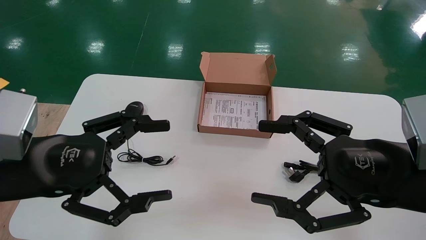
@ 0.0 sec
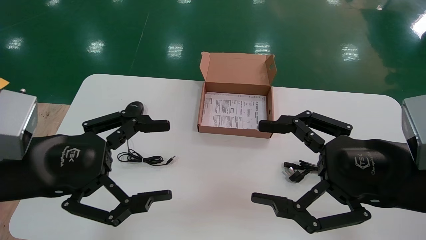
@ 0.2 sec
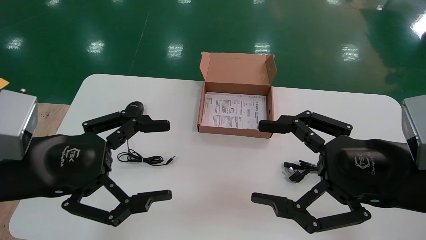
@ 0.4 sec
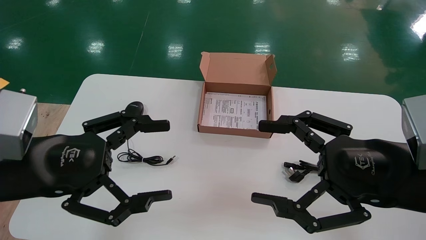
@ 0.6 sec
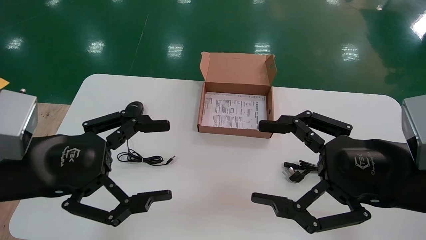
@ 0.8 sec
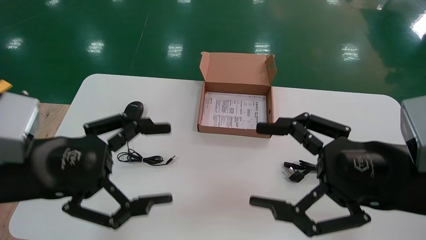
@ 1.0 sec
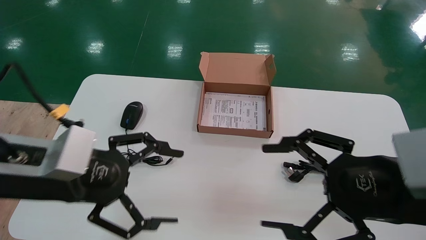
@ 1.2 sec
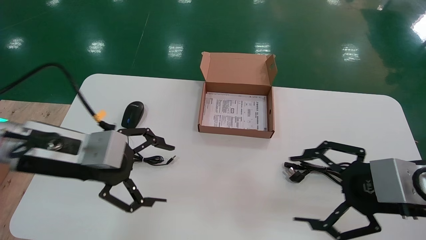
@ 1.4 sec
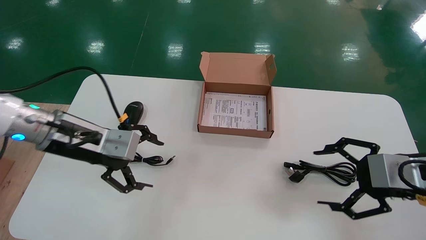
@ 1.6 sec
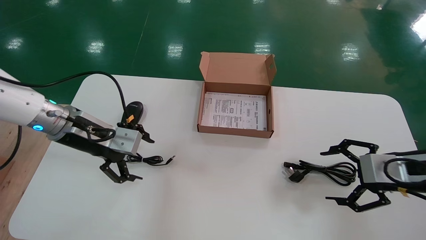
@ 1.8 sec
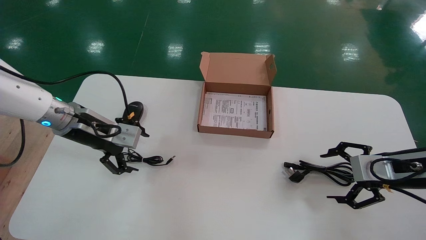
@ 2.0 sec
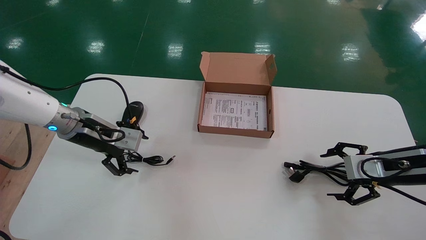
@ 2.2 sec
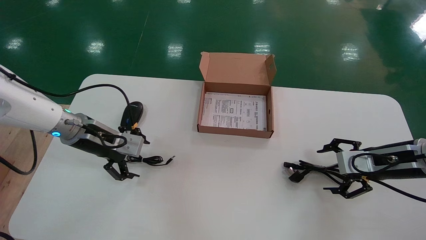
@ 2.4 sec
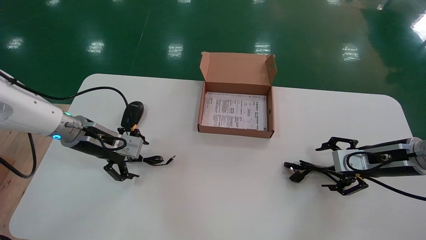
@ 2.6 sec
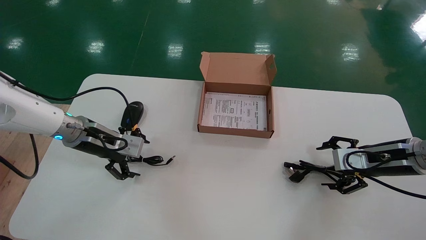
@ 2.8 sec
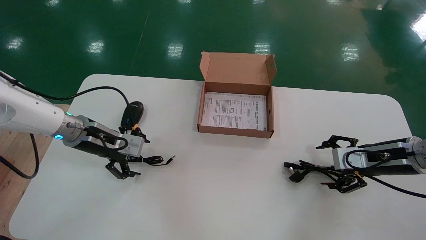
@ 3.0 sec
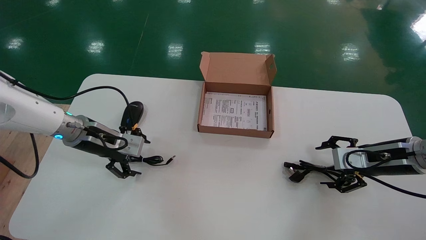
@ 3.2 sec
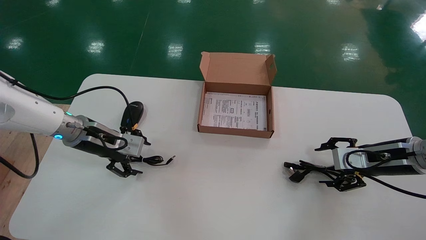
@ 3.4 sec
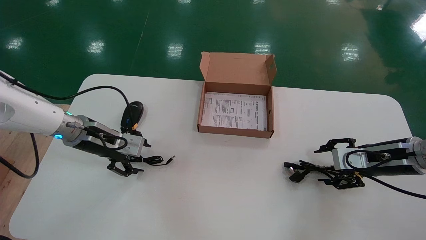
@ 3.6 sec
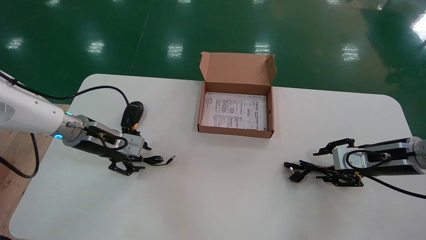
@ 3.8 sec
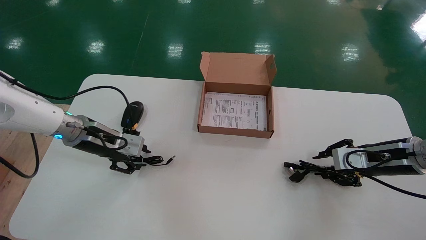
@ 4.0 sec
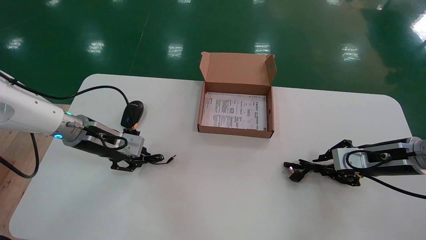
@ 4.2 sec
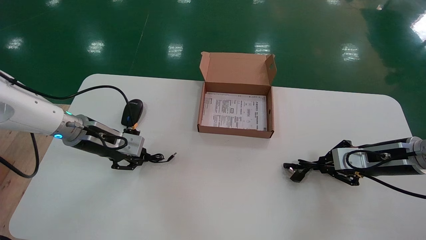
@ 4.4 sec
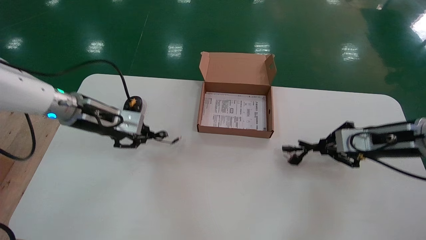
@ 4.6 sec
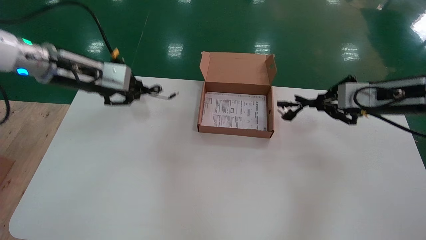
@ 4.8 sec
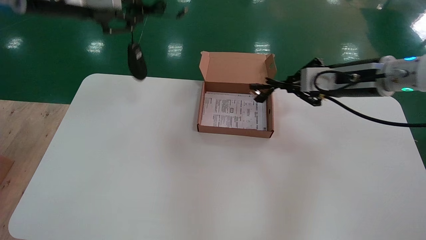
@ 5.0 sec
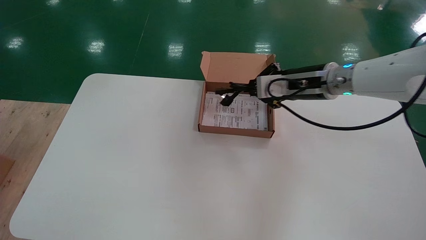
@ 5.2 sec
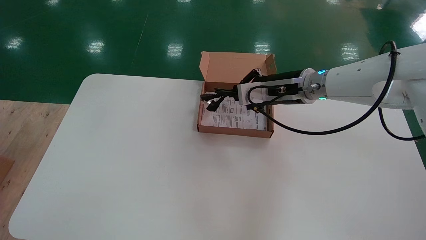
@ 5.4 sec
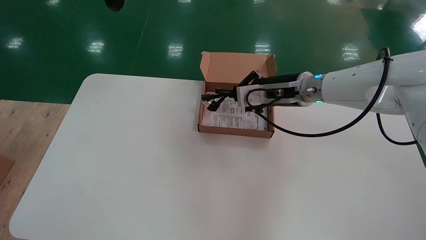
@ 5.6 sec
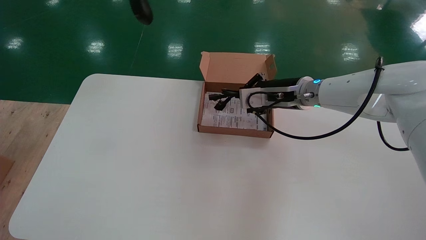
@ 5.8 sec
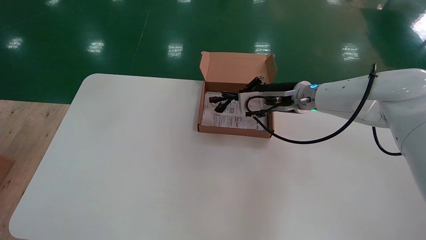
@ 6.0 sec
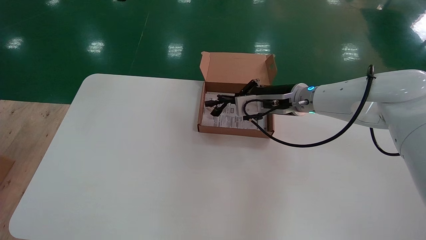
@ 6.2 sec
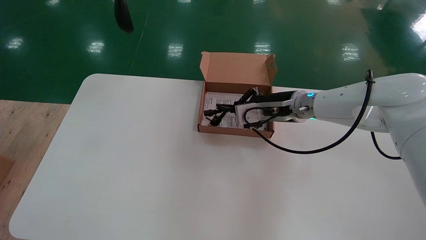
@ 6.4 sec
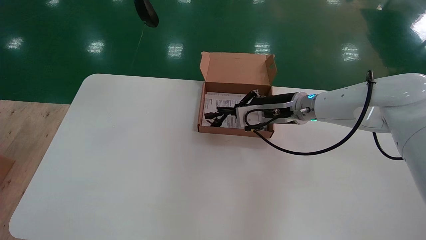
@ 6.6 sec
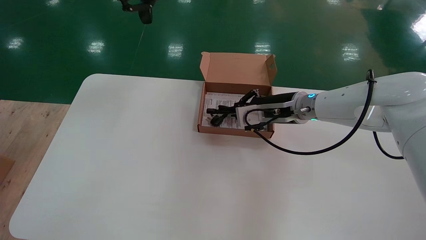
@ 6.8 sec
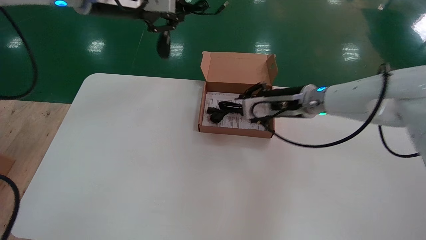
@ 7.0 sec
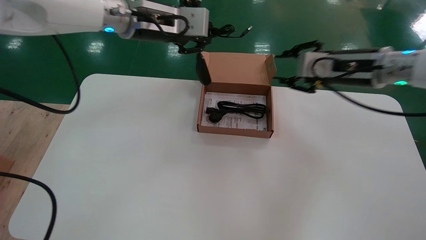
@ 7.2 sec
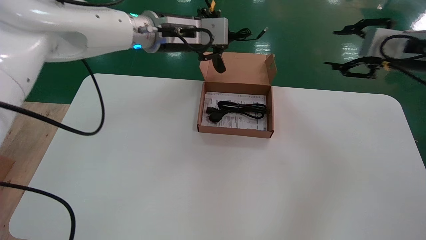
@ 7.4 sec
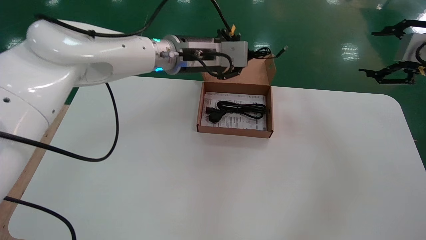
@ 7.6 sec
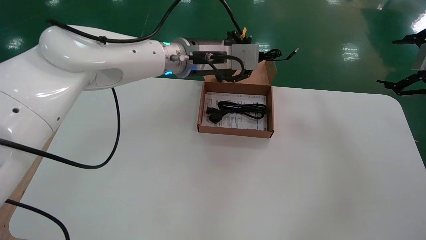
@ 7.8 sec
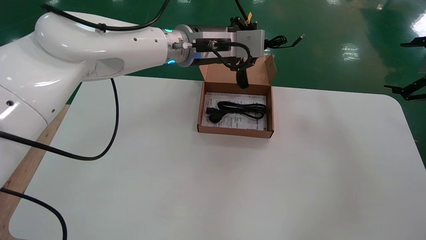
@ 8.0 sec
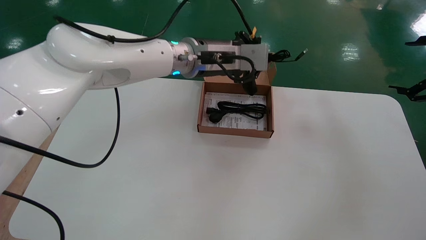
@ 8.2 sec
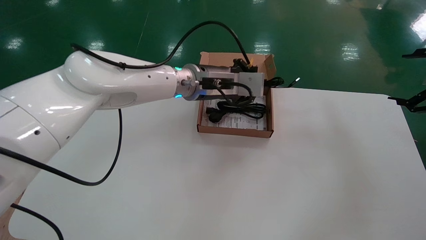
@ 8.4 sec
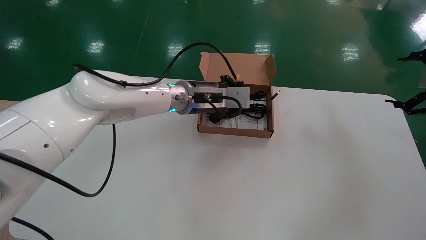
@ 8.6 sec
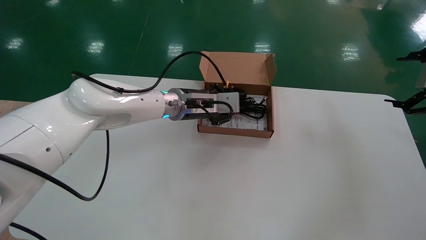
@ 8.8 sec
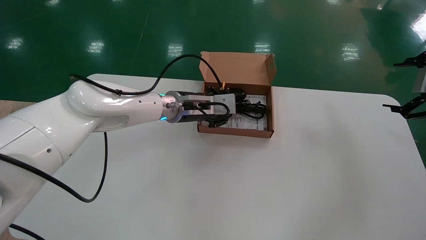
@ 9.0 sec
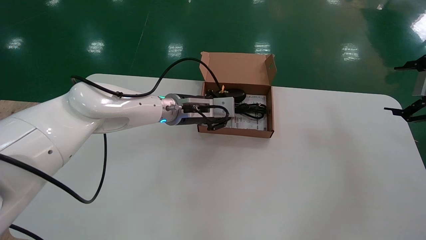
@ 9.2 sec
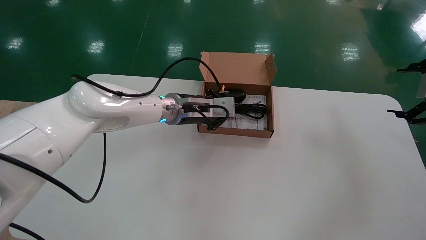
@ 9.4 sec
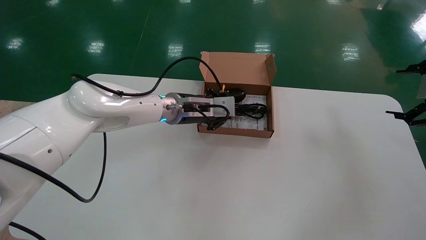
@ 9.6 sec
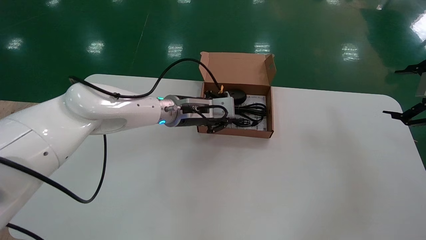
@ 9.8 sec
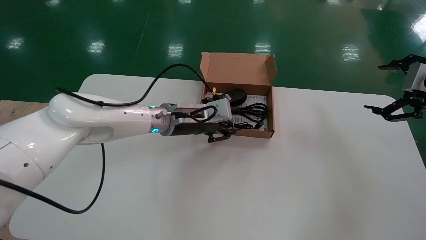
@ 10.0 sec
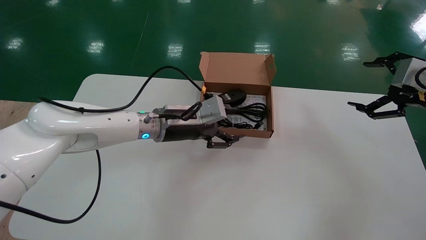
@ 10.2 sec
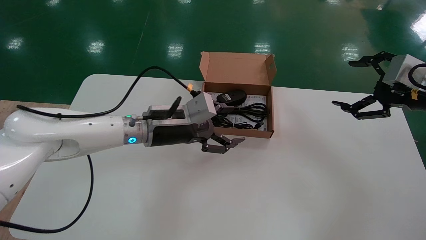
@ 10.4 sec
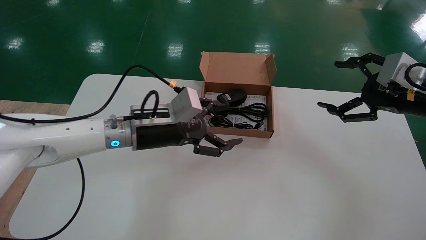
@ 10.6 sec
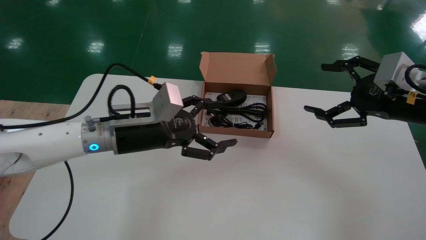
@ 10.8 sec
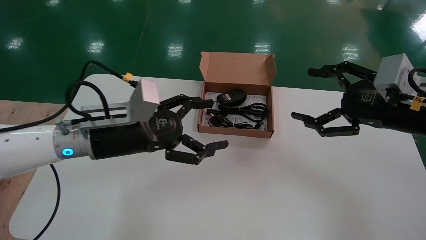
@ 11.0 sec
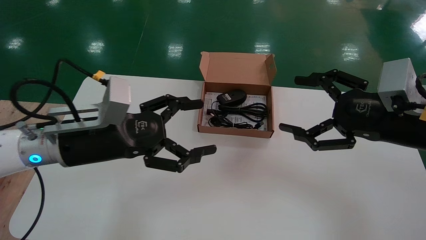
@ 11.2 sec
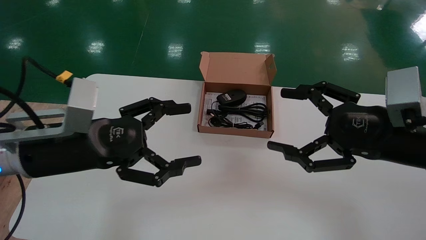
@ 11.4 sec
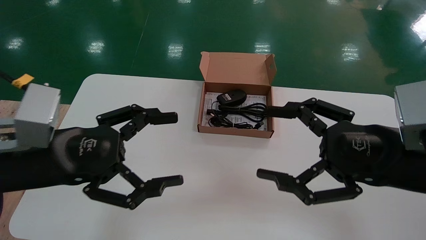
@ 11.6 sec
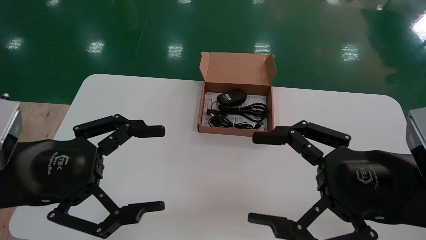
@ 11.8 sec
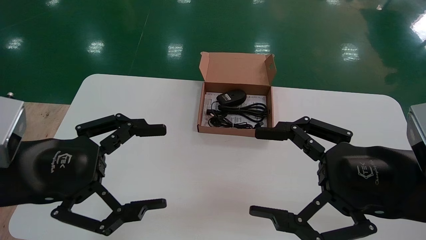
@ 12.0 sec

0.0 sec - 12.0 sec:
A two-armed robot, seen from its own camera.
Step, 1.2 sec - 4.2 sec: Simultaneously pick up the mouse and power cord from the accessory packaging area.
Step, 4.4 sec - 10.2 sec: Place the mouse and power cord into the box.
0.0 sec - 1.6 sec: The right gripper moves to the right and forward, some 10 cm, while the left gripper moves forward, approximately 15 cm.
1.6 sec - 3.0 sec: The right gripper moves forward, about 10 cm; the left gripper goes about 10 cm forward and downward.
3.0 sec - 4.4 sec: The right gripper closes, while the left gripper closes.
4.4 sec - 6.0 sec: The left gripper shifts about 30 cm upward. Meanwhile the right gripper shifts roughly 25 cm to the left and forward.
6.0 sec - 7.6 sec: The right gripper heads to the right and backward, covering approximately 30 cm, and opens its fingers, while the left gripper heads to the right, downward and forward, covering roughly 25 cm.
7.6 sec - 9.0 sec: The left gripper travels downward by roughly 15 cm; the right gripper goes some 5 cm to the right, and opens up.
9.0 sec - 10.4 sec: The left gripper shifts about 5 cm backward, and opens up. The right gripper shifts about 10 cm to the left.
10.4 sec - 12.0 sec: Both grippers move backward and to the left, approximately 25 cm.

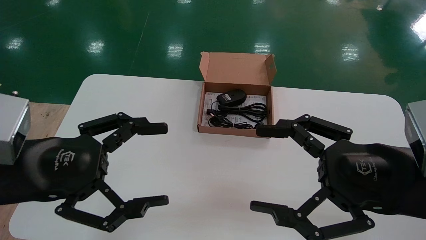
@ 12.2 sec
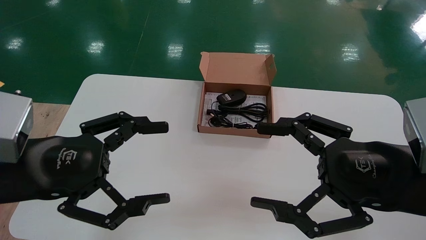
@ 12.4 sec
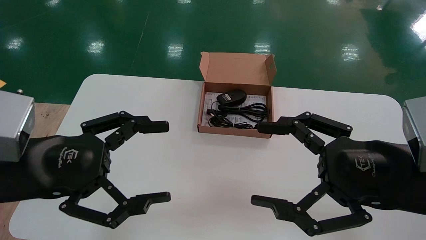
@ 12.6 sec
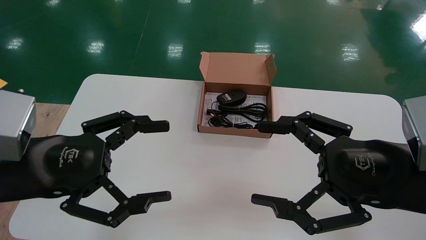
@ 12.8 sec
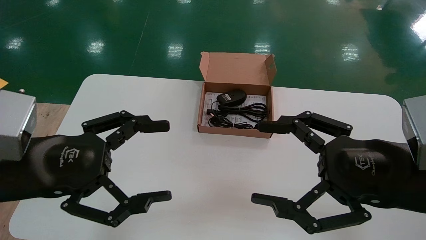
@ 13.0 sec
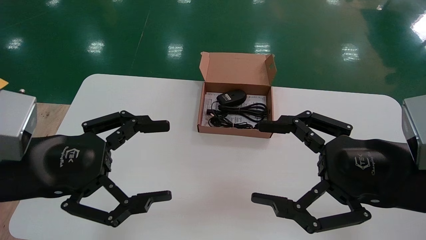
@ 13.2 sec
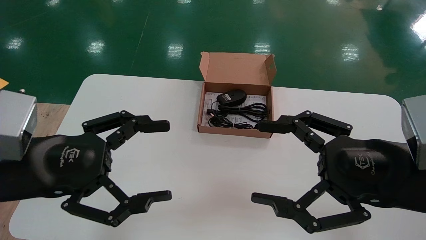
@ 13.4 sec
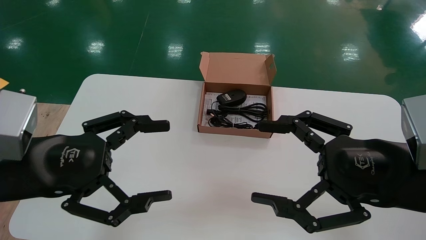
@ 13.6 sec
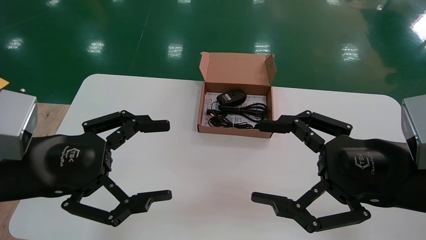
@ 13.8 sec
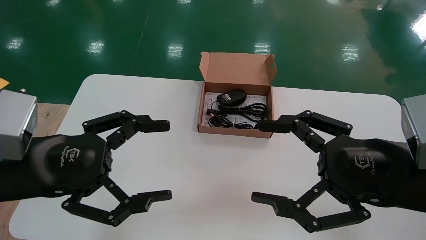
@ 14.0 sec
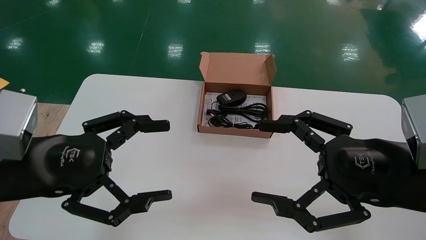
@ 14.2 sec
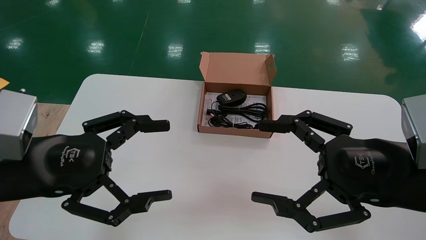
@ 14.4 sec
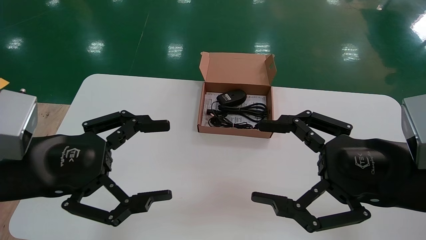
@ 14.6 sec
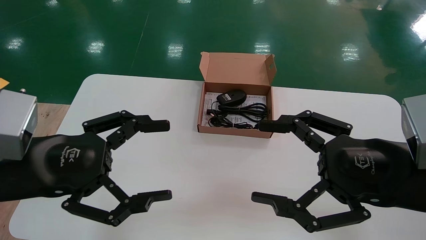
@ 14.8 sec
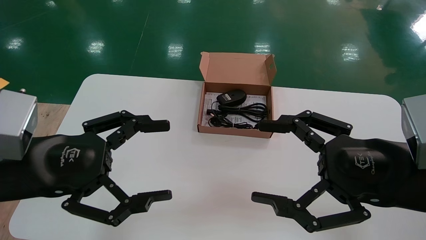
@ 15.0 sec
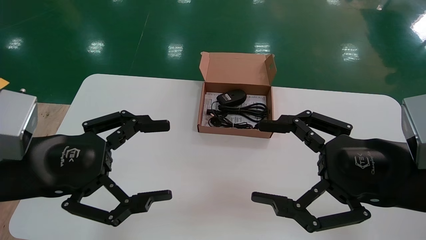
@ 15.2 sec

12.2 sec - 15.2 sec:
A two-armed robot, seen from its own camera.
12.2 sec - 15.2 sec: The two grippers keep their place.
